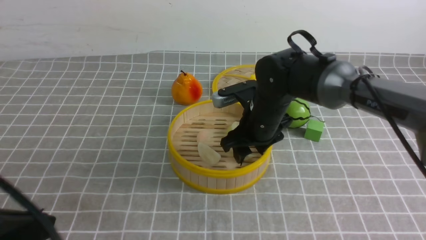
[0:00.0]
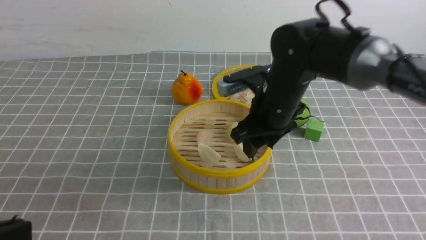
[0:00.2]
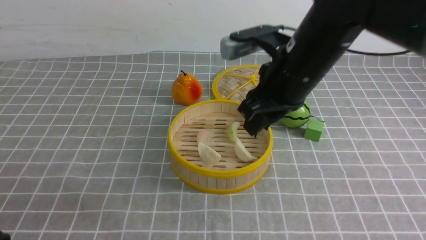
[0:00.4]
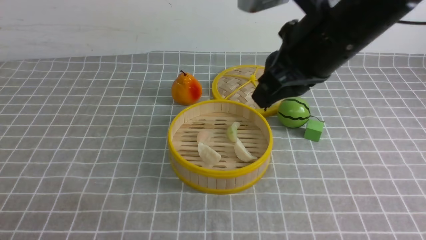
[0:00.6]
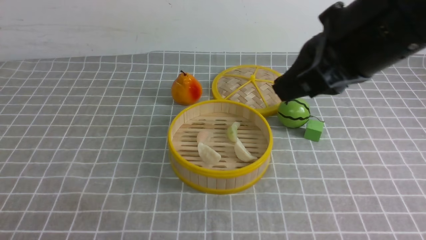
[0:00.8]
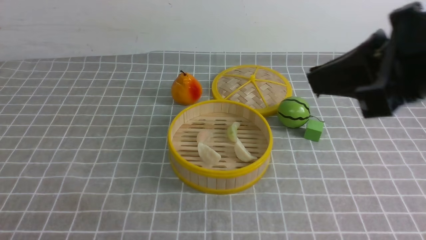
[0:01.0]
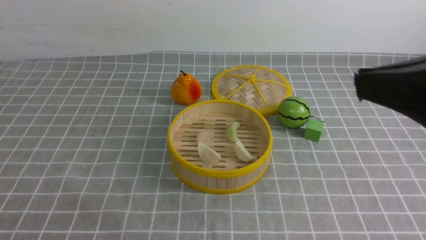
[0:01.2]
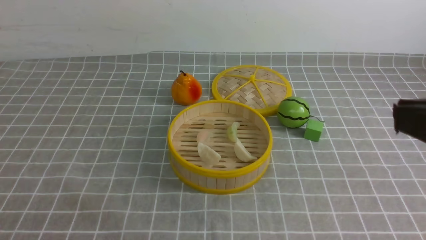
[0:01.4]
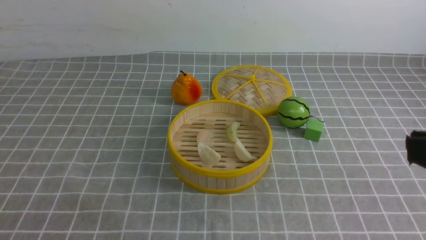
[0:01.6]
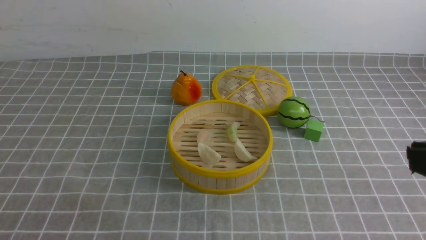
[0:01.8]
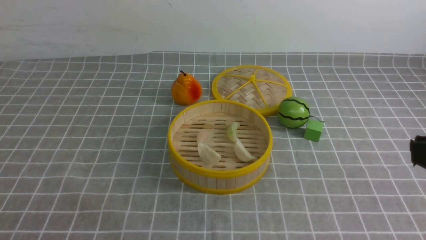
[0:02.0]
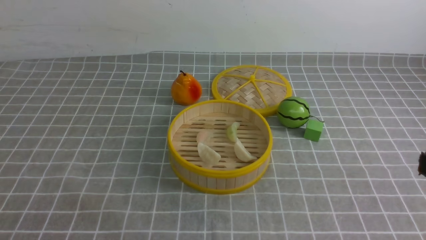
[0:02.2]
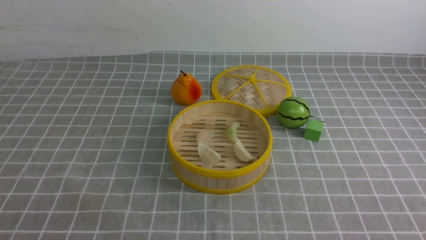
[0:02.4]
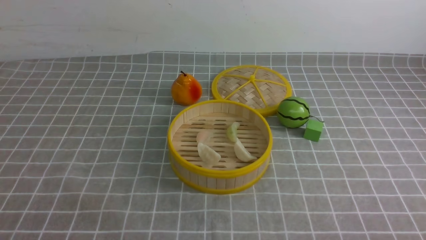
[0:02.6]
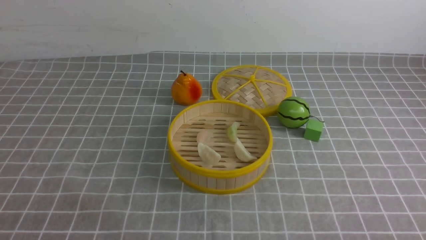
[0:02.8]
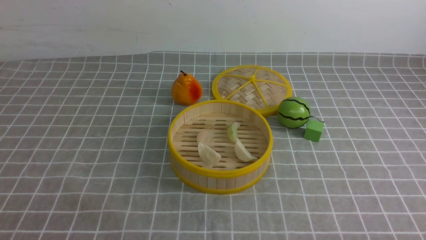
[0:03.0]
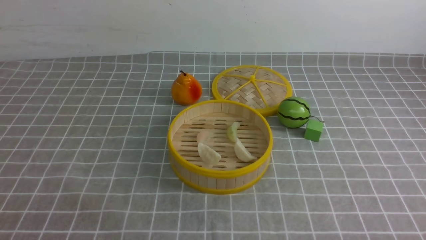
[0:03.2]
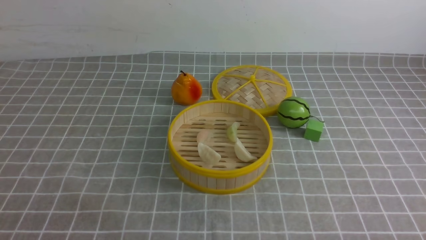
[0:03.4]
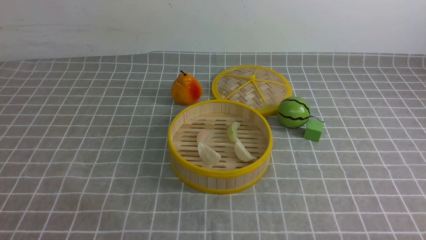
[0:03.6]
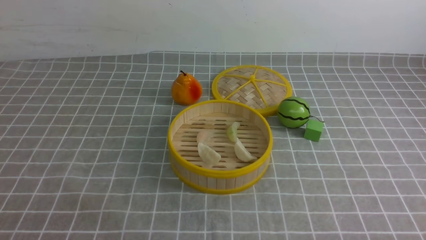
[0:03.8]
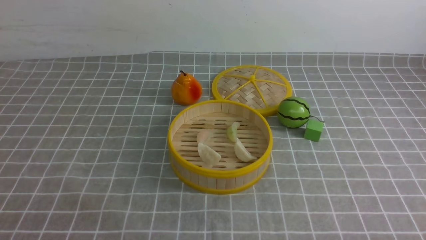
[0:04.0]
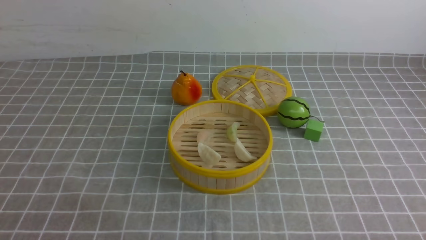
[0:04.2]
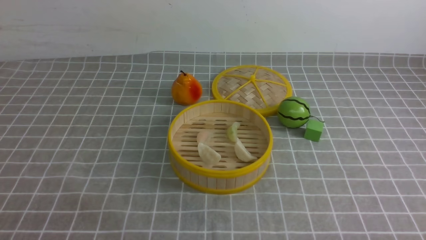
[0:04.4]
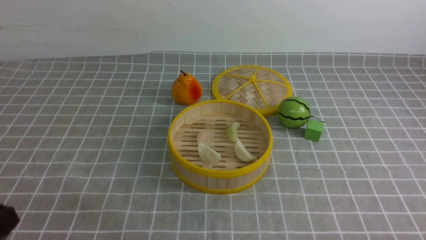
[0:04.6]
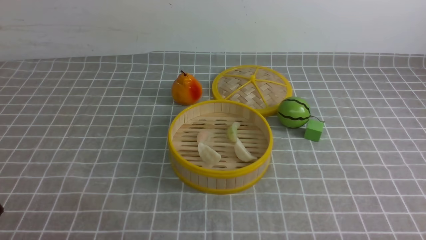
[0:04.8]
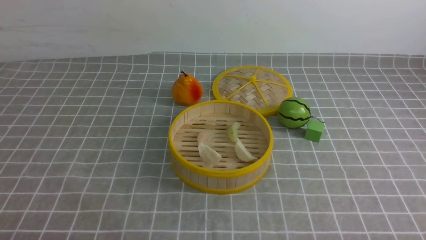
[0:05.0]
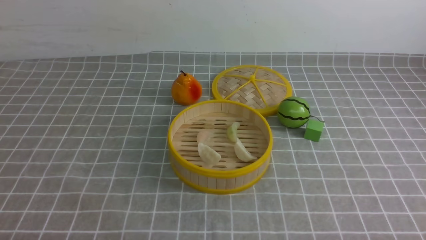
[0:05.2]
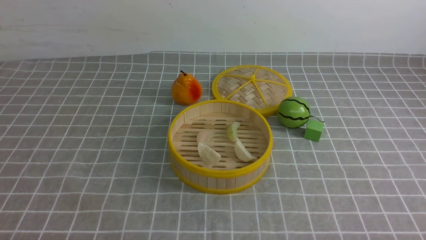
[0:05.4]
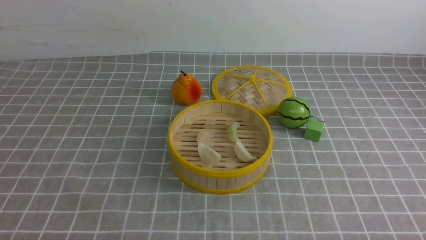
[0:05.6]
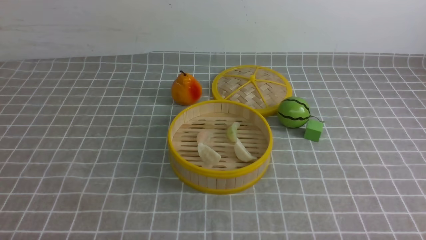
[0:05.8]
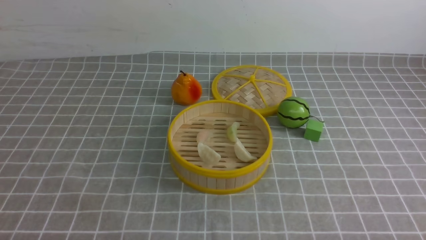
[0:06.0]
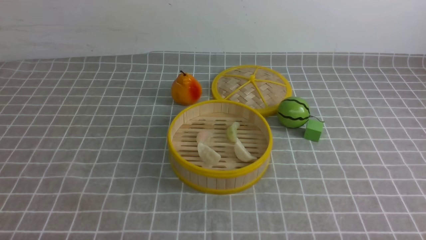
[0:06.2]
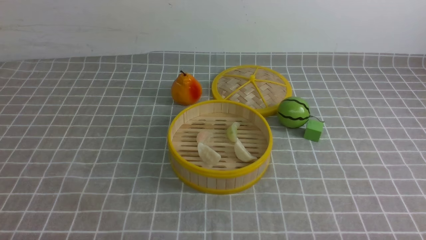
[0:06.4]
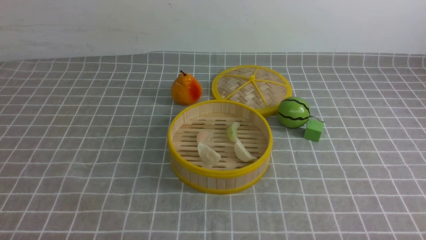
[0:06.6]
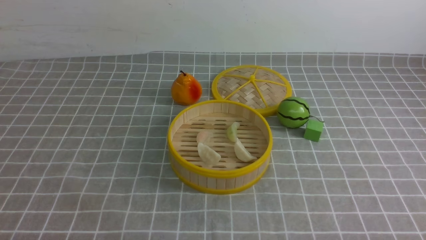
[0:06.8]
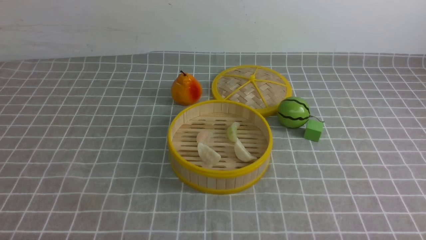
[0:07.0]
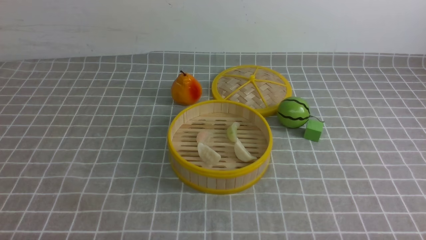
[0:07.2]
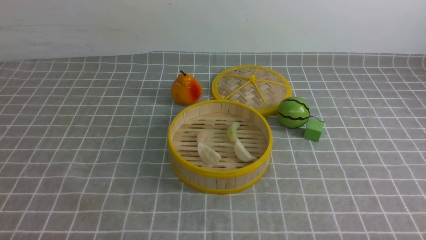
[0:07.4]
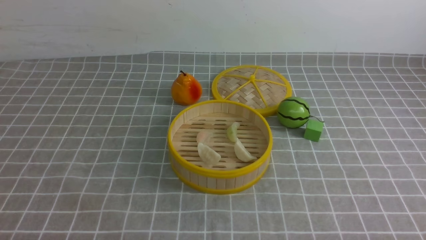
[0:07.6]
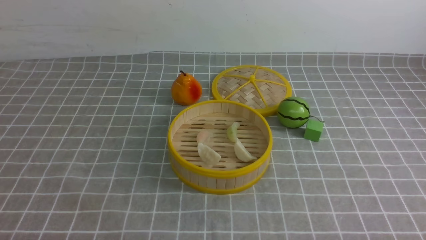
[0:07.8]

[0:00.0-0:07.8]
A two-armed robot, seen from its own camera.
Task of the whole recording: put the dumplings into the steamer on the table with the grey tablecloth.
0:00.0 to 0:01.6: The left gripper travels backward by some 5 cm; the right gripper is displaced backward, upward and to the right by about 40 cm, and closes its fingers.
0:01.6 to 0:03.2: The right gripper is displaced downward by some 25 cm.
0:06.2 to 0:07.8: The two grippers keep their place.
